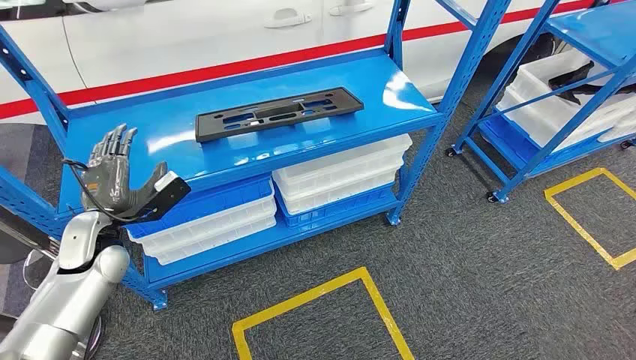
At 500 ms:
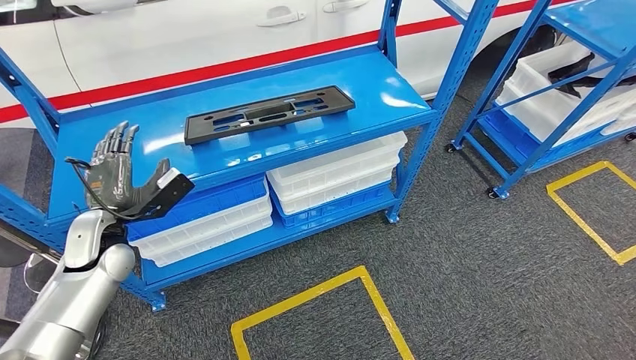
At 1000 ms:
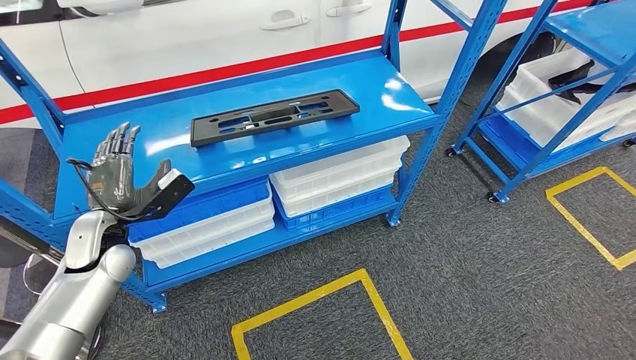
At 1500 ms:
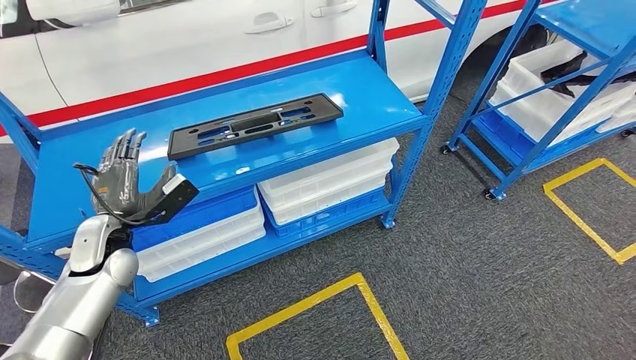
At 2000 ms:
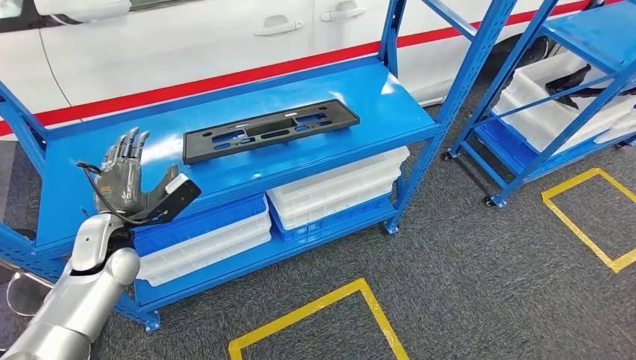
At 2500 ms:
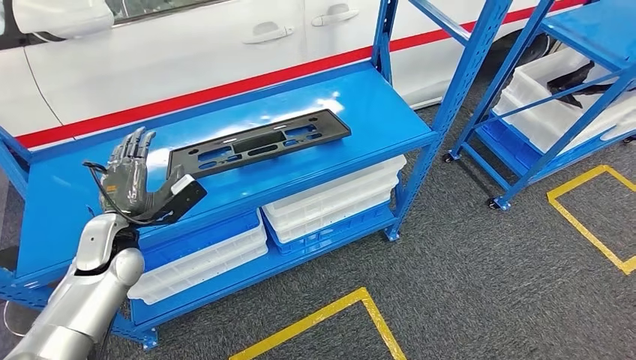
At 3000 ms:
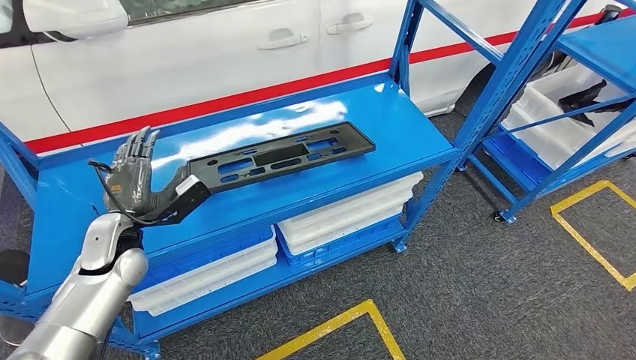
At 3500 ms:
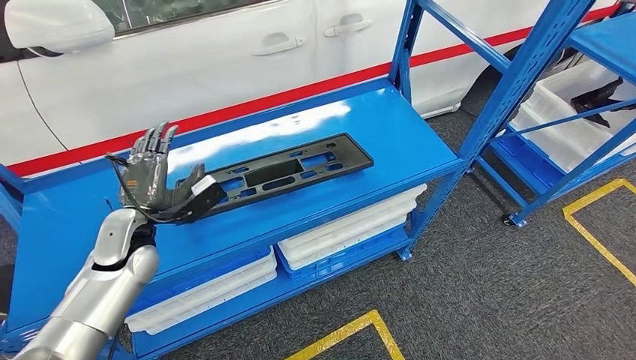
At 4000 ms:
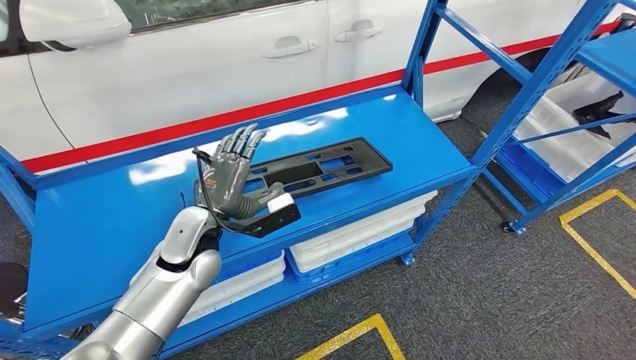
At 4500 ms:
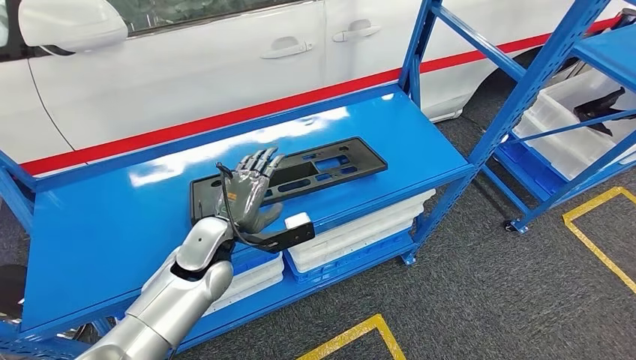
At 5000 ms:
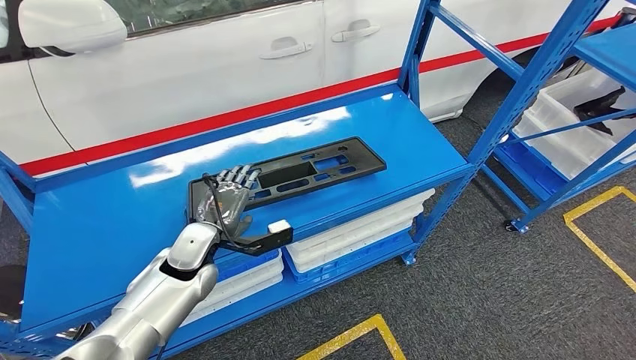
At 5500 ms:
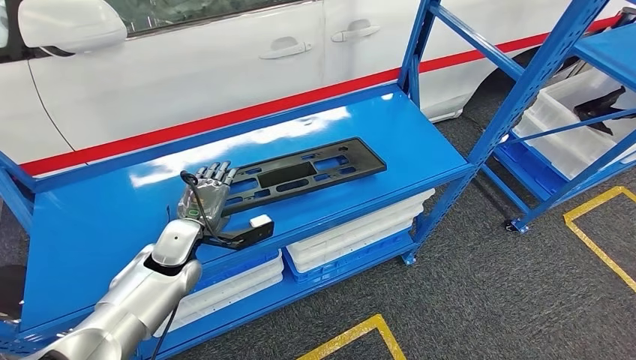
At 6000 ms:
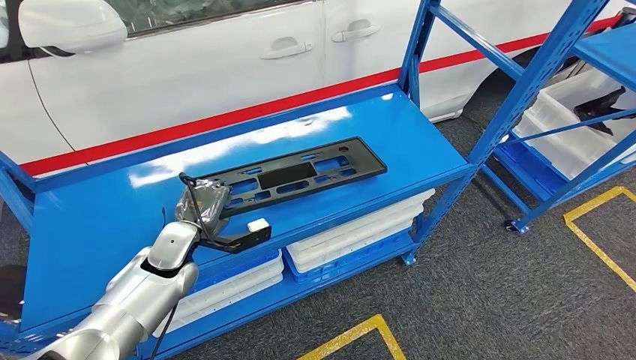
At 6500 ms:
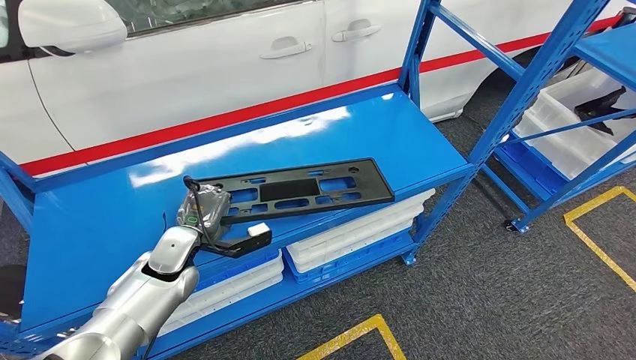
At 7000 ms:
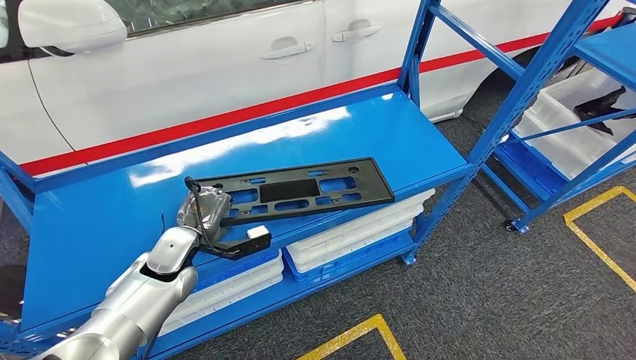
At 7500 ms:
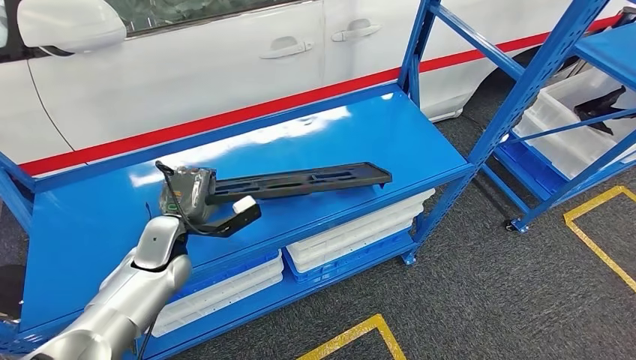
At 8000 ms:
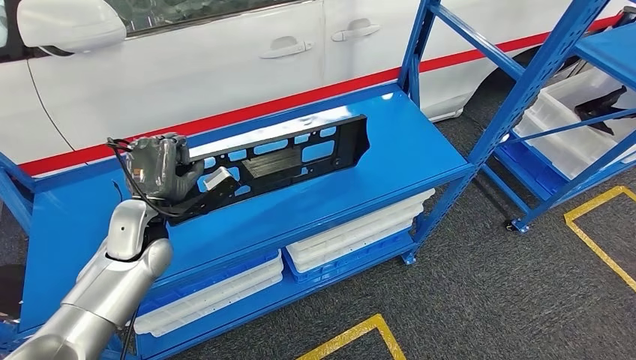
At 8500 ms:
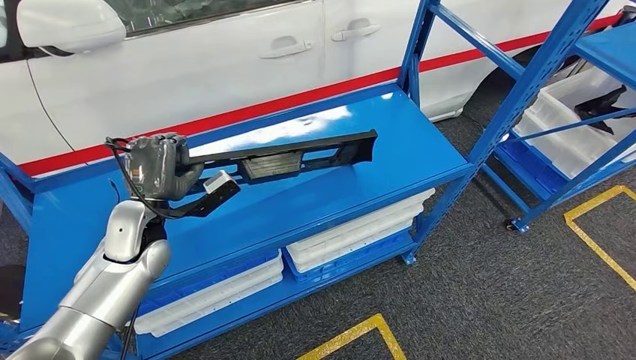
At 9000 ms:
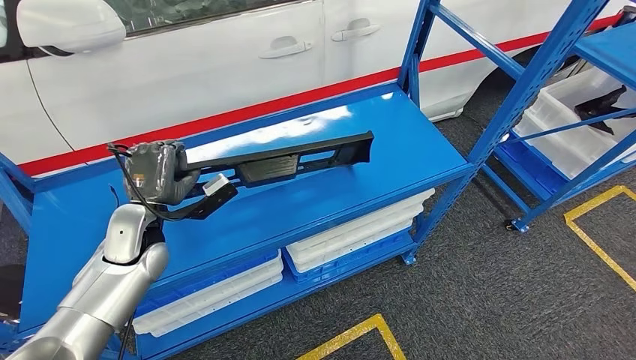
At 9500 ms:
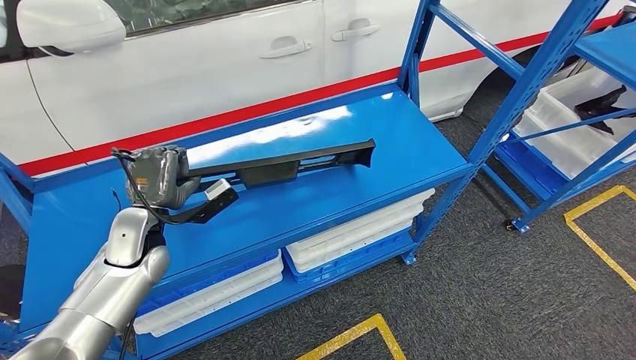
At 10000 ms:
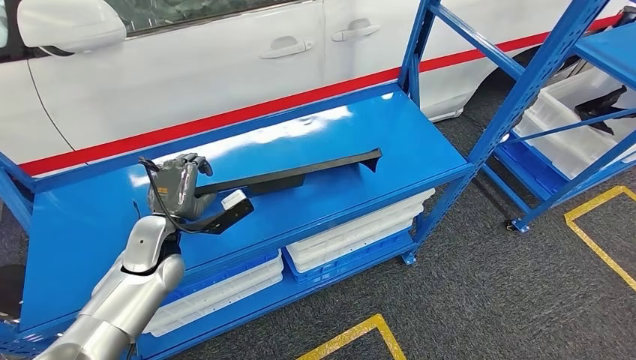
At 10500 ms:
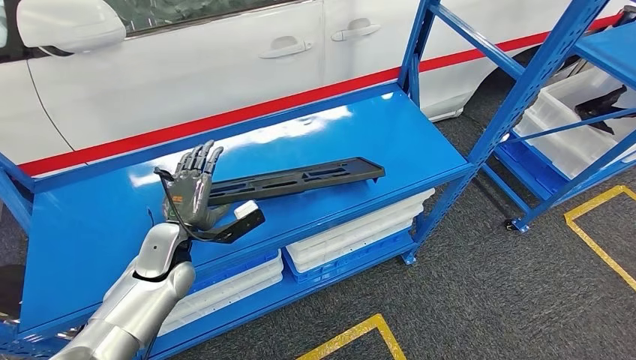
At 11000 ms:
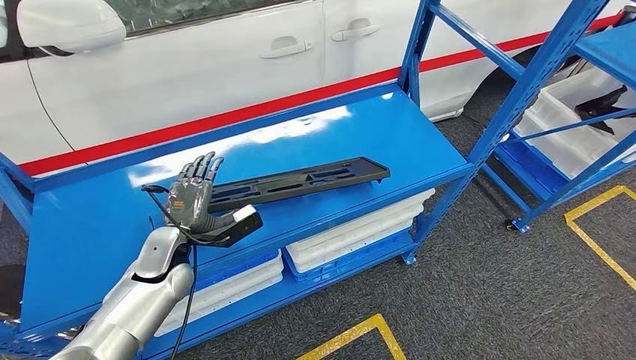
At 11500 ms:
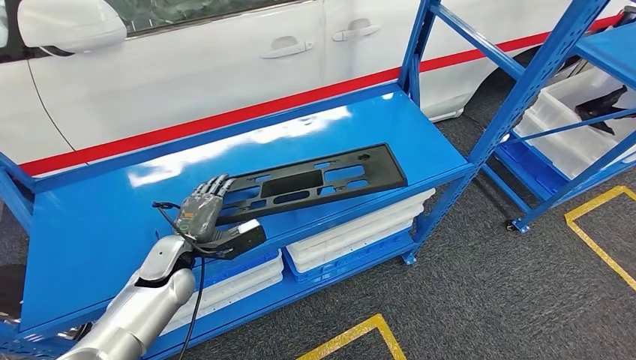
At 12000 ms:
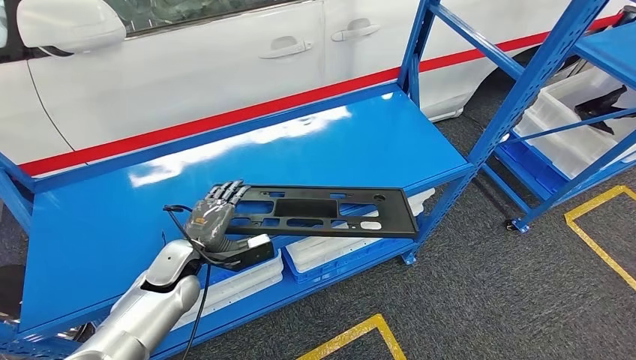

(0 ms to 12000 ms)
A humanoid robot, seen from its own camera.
4000 ms - 6000 ms: The left hand moves to the left and downward, approximately 10 cm.
6000 ms - 8000 ms: The left hand shifts roughly 5 cm upward; the right hand moves to the left, roughly 10 cm.
8000 ms - 10000 ms: The right hand travels to the right by approximately 5 cm.
10000 ms - 12000 ms: The left hand travels downward by some 5 cm.

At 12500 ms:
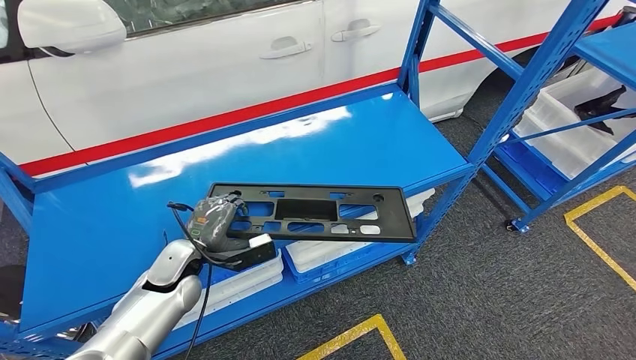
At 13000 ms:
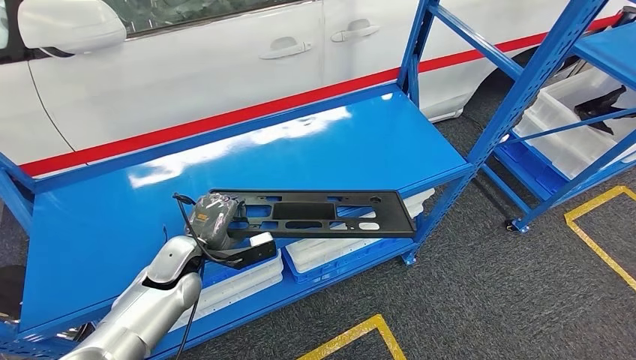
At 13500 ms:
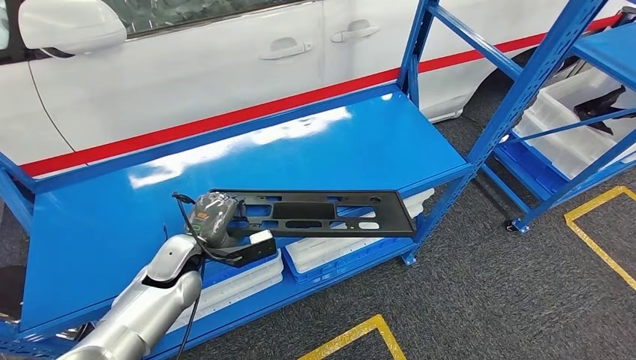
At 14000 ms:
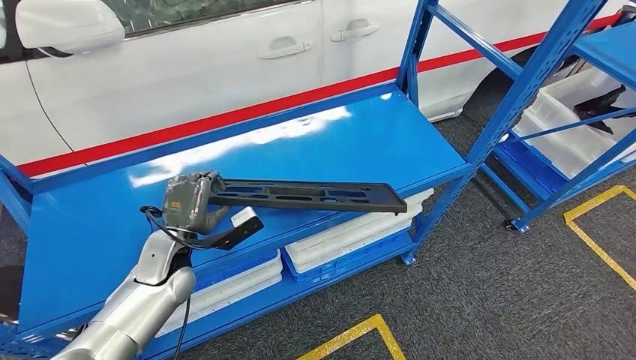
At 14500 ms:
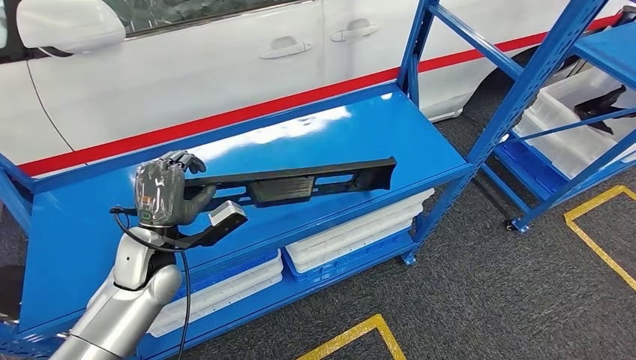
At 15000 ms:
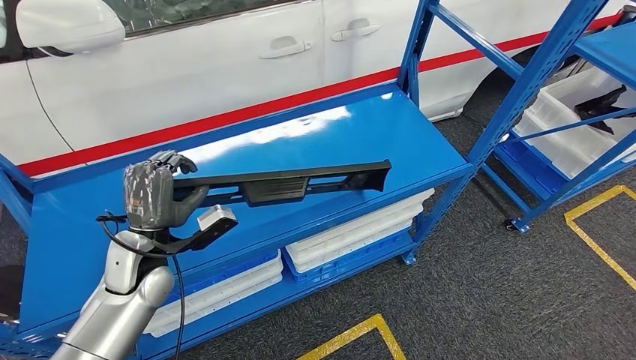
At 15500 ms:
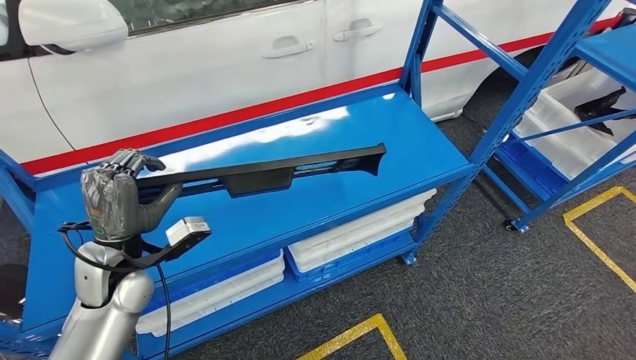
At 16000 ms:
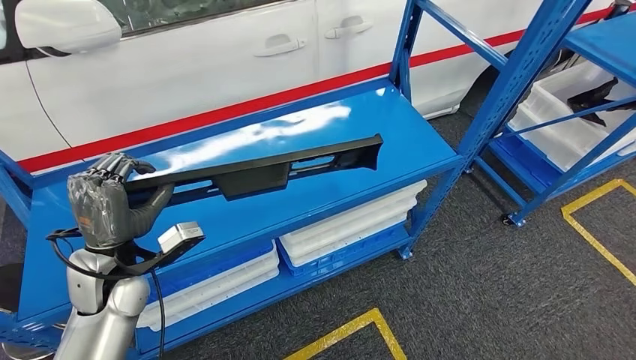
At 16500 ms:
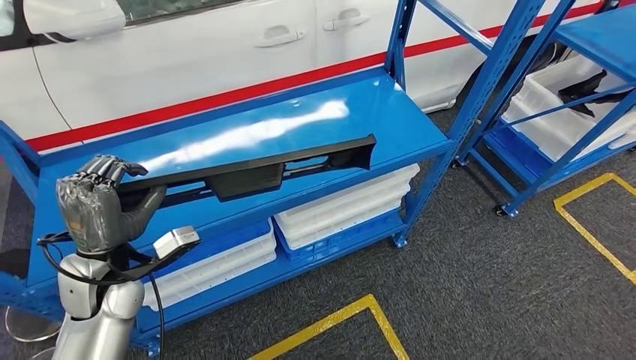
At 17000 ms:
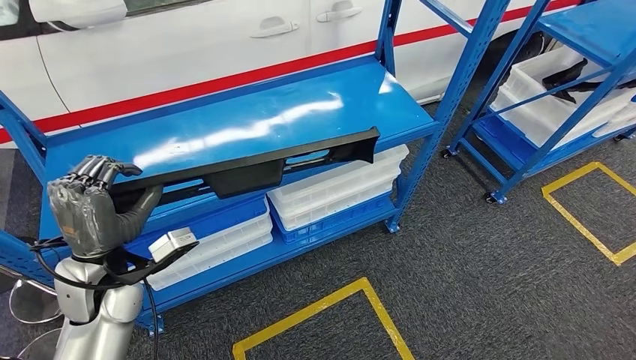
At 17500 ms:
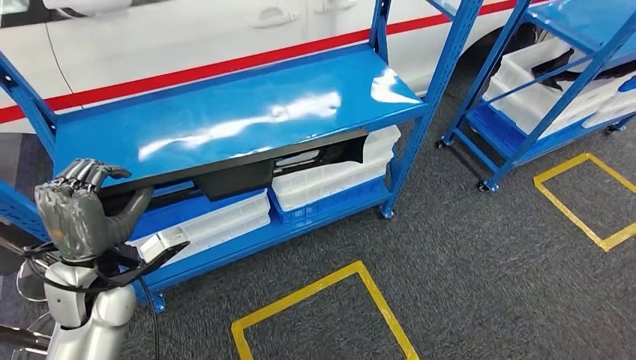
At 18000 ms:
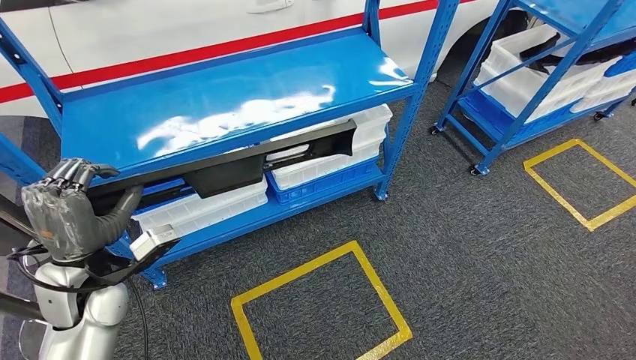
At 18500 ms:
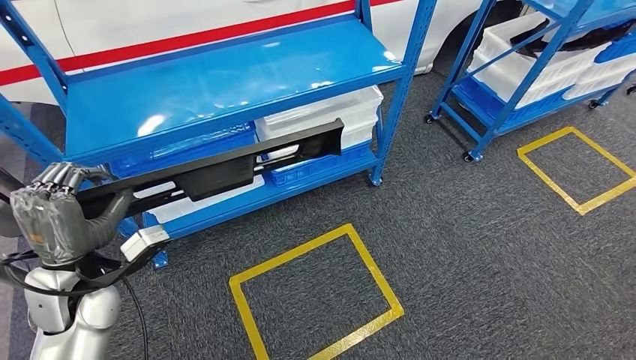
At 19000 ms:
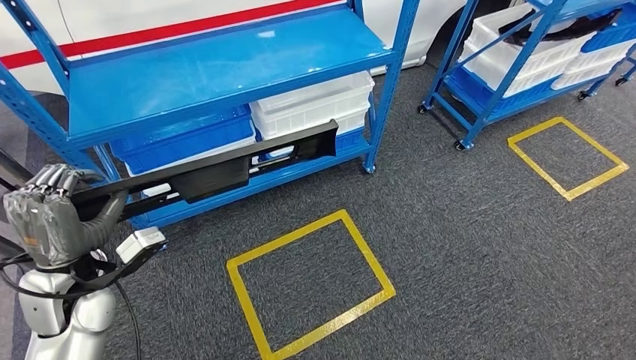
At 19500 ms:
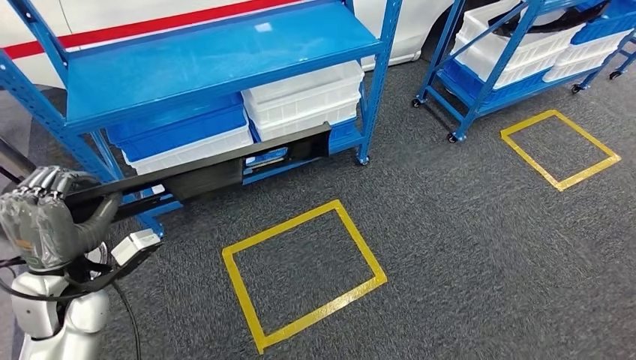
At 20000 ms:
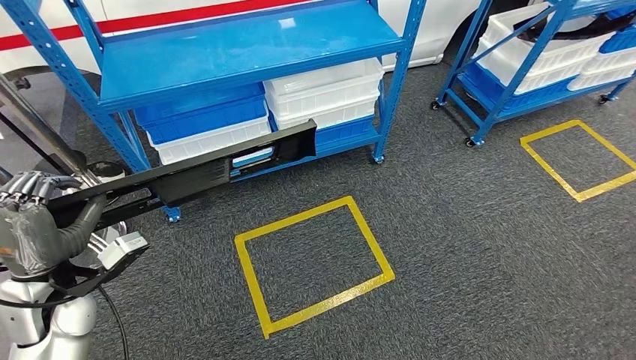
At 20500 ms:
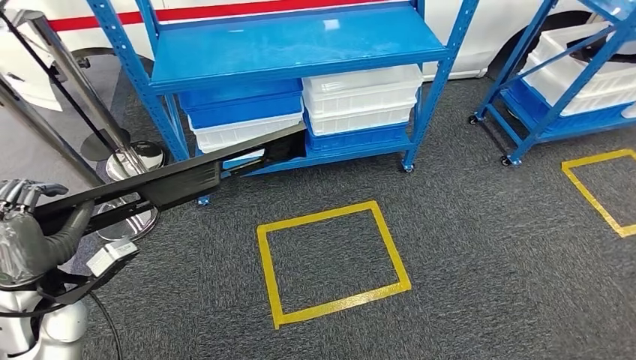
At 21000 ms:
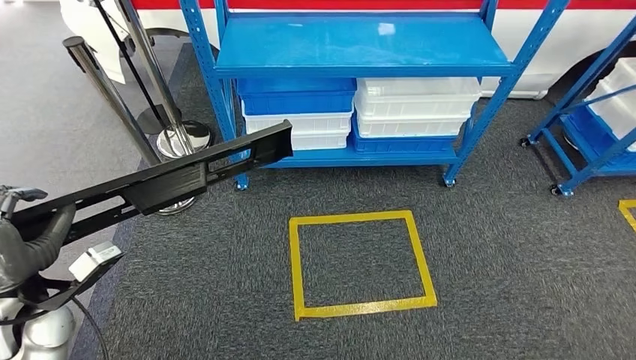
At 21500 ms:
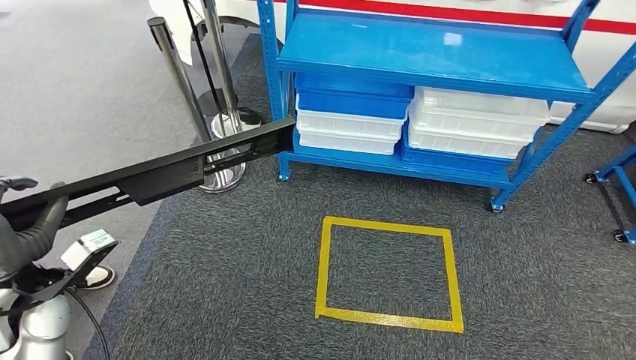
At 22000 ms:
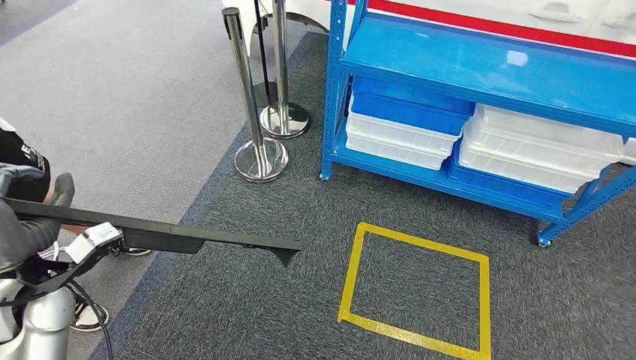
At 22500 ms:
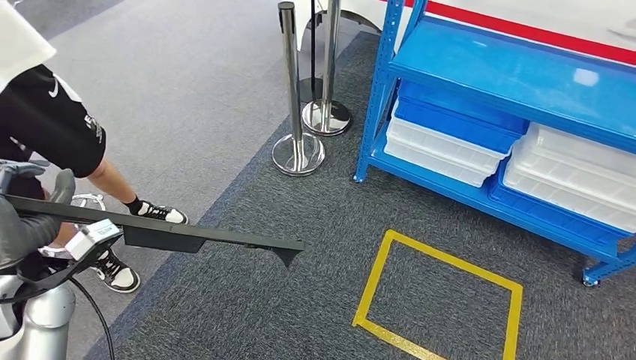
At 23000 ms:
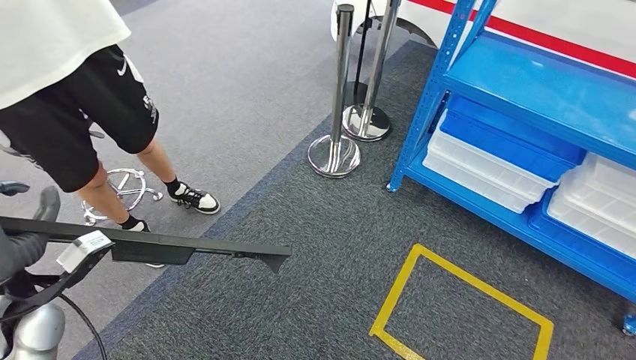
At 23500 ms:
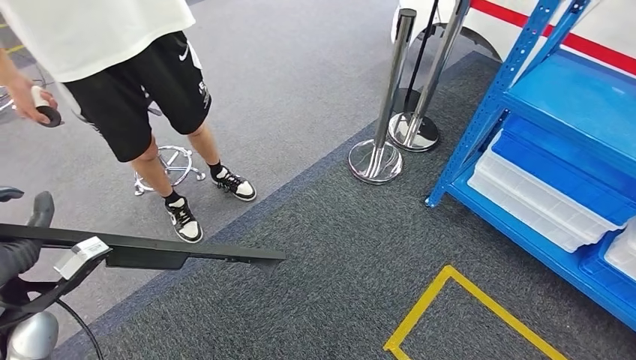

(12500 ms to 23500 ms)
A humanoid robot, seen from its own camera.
Step, 12500 ms - 17500 ms: Pick up the large material from the shelf.
12500 ms - 14500 ms: The right hand is displaced to the left by some 5 cm, while the left hand travels upward by some 5 cm.
